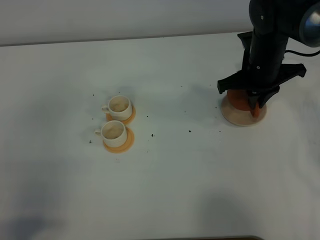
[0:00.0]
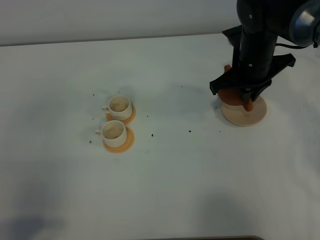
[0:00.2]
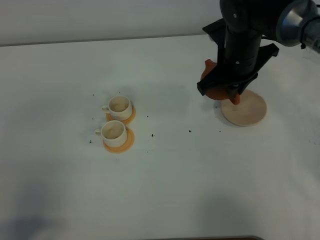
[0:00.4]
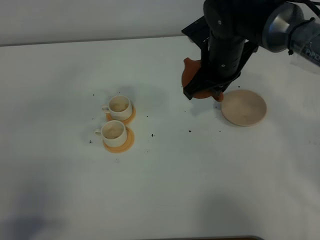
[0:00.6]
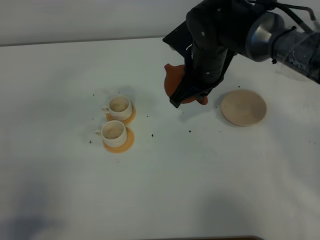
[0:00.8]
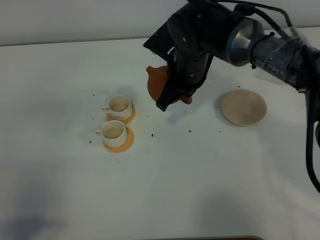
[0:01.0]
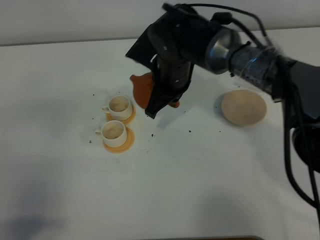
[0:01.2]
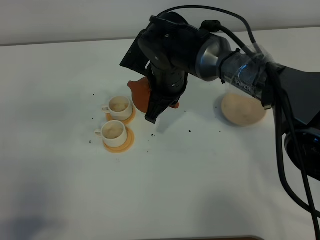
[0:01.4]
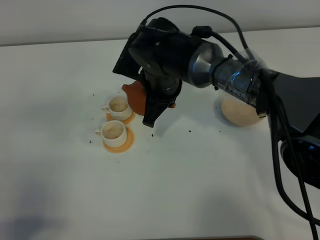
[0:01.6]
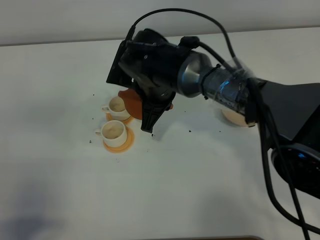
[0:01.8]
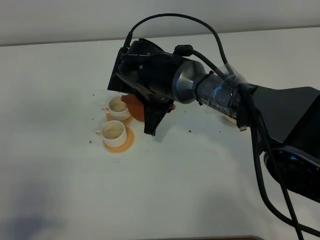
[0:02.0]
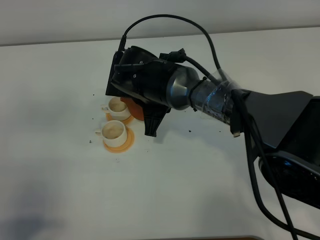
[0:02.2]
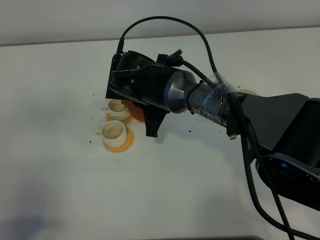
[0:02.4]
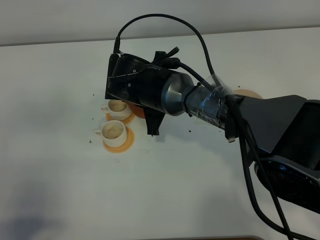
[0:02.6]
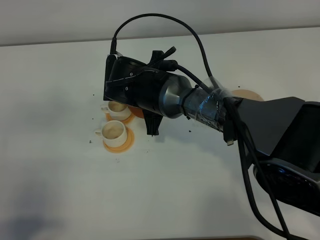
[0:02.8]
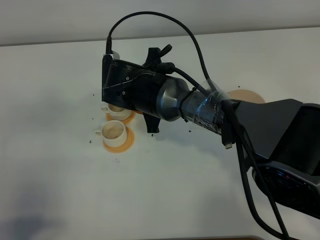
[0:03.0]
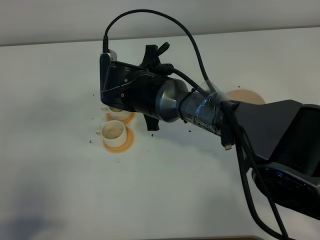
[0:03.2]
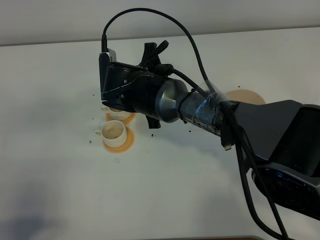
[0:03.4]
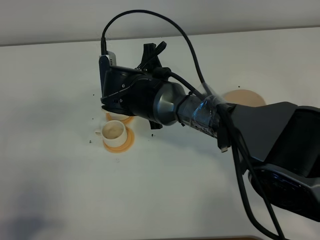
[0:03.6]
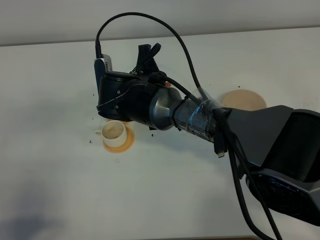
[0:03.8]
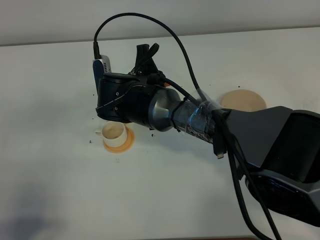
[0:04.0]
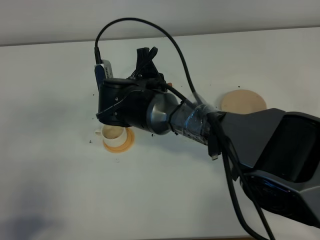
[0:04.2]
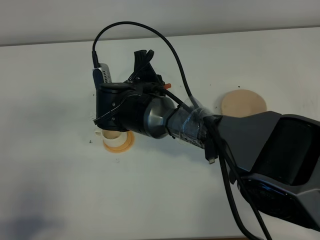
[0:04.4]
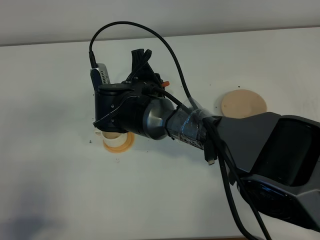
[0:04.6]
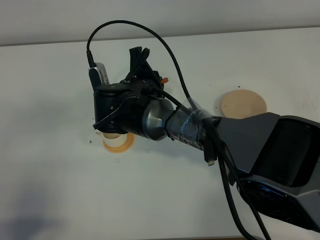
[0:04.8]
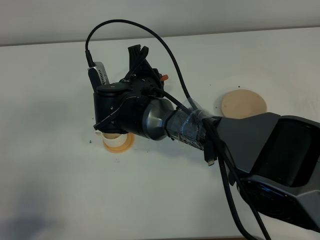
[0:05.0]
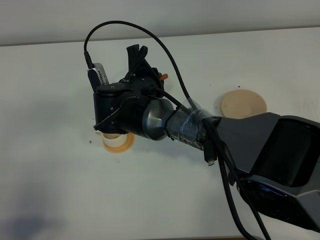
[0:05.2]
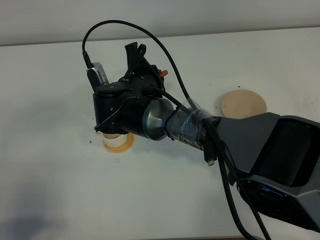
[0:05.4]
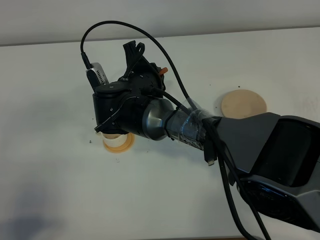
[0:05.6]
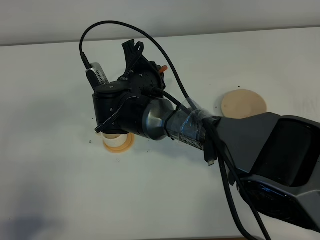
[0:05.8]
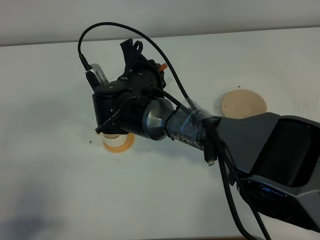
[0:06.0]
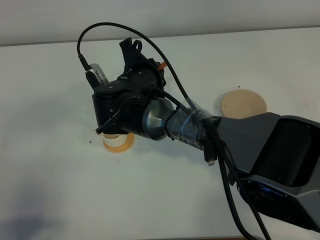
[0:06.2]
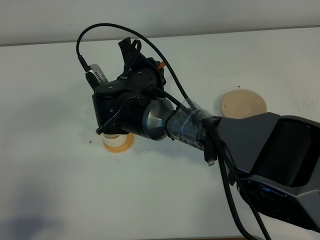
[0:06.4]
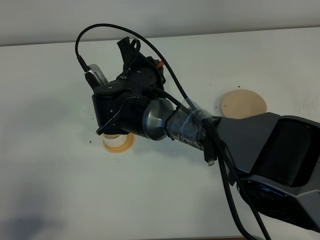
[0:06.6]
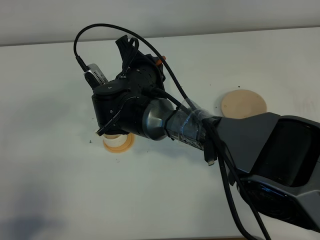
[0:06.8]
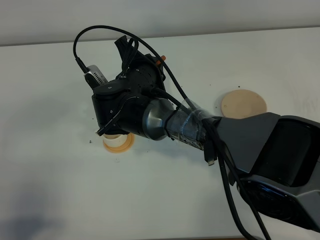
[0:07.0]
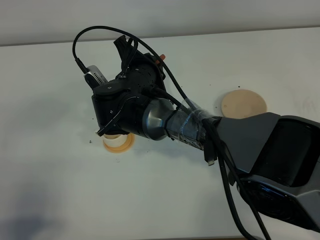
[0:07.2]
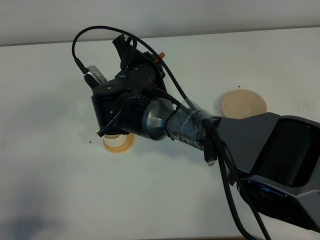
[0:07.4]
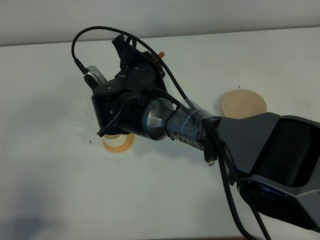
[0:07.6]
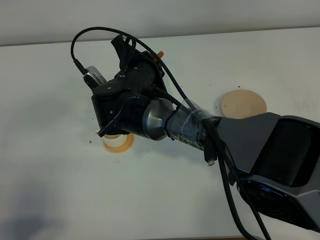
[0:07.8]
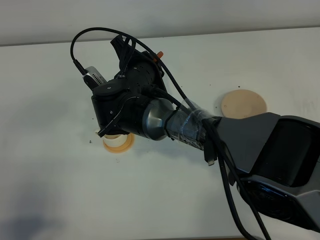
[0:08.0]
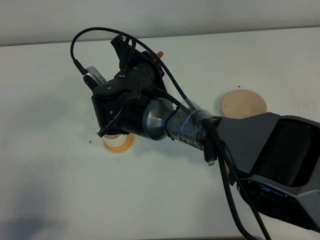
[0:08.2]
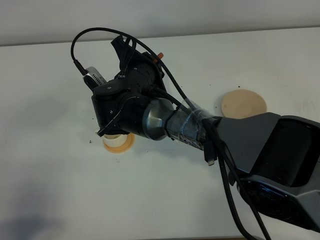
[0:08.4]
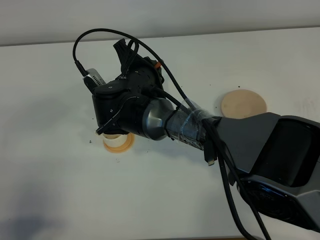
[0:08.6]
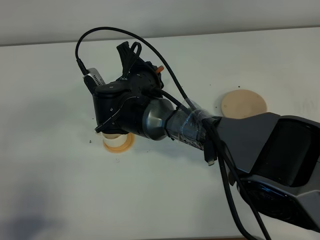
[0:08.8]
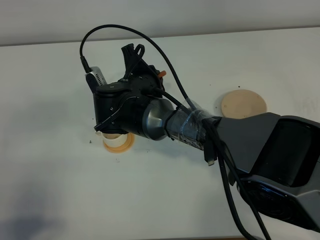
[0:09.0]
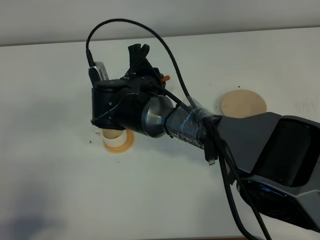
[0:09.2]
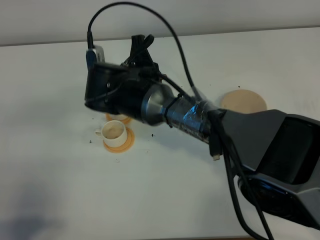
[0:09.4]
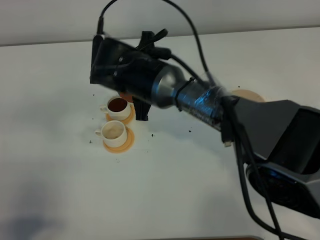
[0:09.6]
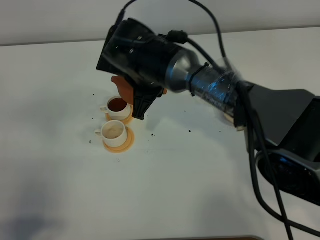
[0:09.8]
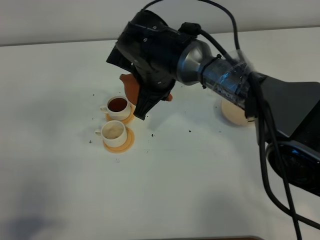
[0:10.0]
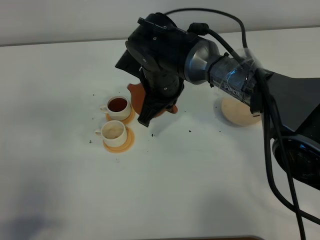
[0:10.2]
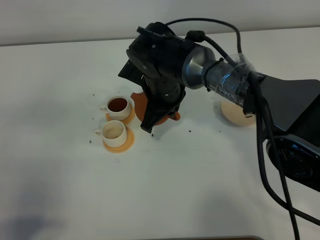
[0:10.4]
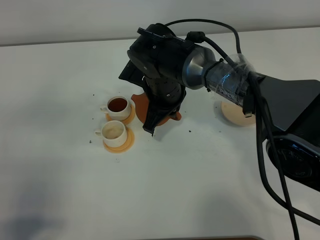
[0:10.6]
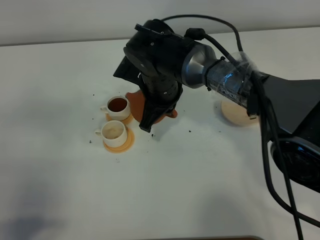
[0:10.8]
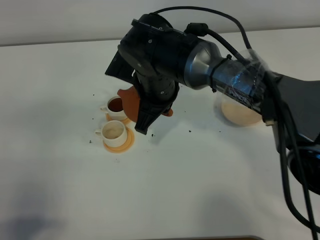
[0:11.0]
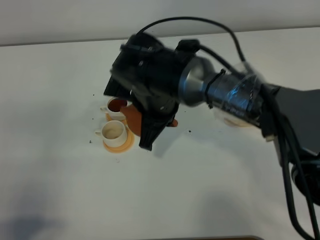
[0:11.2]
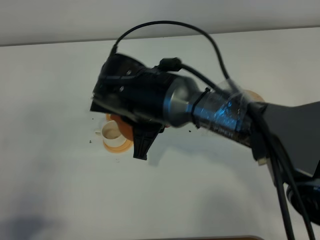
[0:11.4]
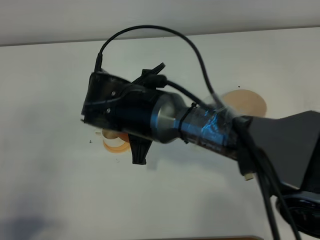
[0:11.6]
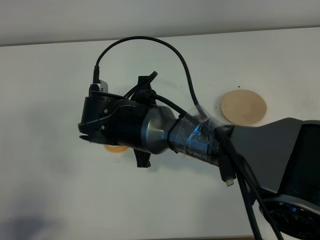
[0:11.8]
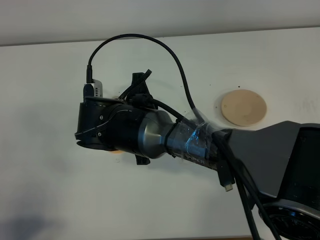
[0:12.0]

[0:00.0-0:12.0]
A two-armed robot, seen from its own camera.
Task of the whole recording: grasp the brown teapot and pour the tea into the two white teacups one by one, put the brown teapot back in its original place.
0:00.0 to 0:01.6: The right gripper travels to the left by roughly 20 cm.
0:04.4 to 0:06.0: The grippers make only small movements.
0:06.0 to 0:09.0: There are only small adjustments of the grippers.
0:09.0 to 0:10.4: The right gripper ends up some 5 cm from where it was.
0:10.4 to 0:12.0: The right gripper travels backward by roughly 10 cm.

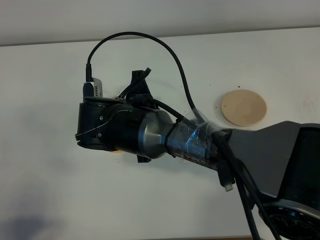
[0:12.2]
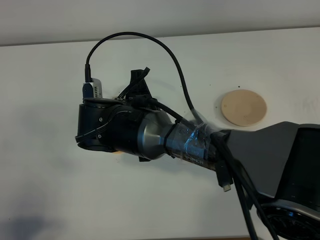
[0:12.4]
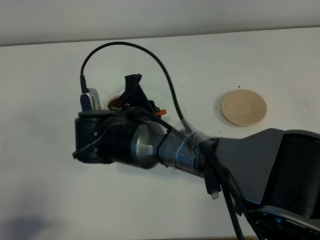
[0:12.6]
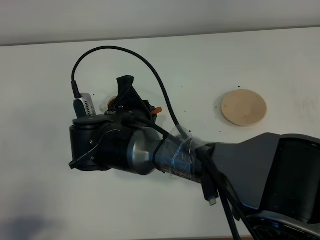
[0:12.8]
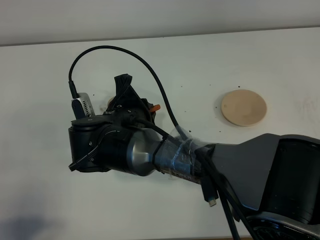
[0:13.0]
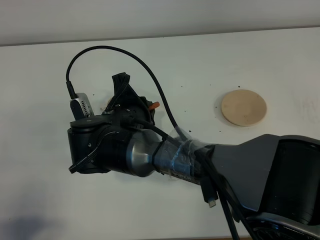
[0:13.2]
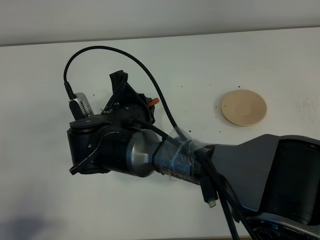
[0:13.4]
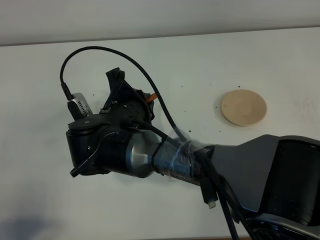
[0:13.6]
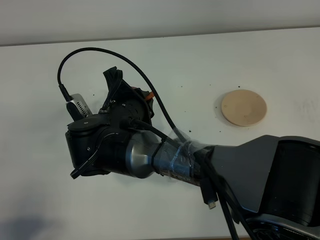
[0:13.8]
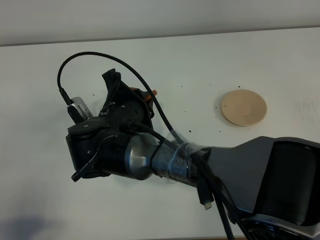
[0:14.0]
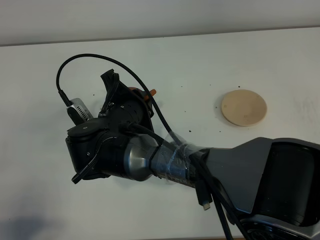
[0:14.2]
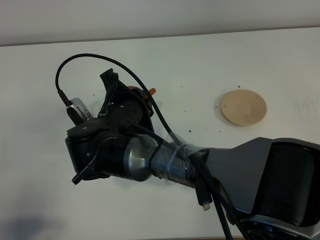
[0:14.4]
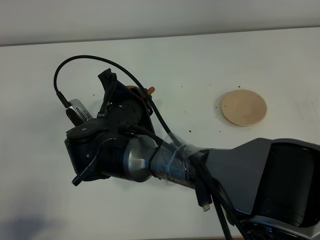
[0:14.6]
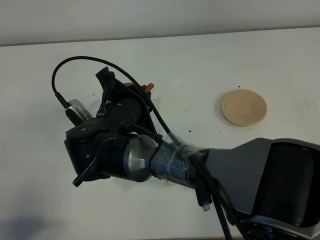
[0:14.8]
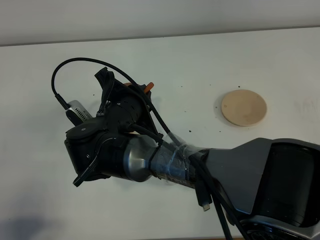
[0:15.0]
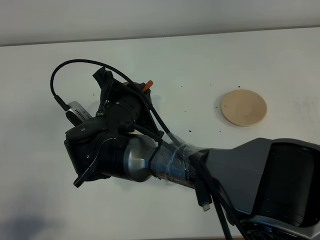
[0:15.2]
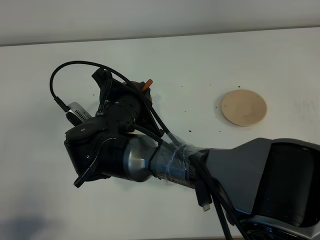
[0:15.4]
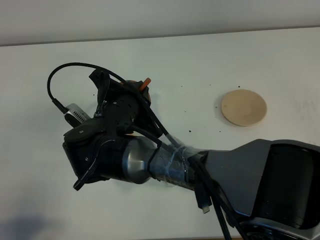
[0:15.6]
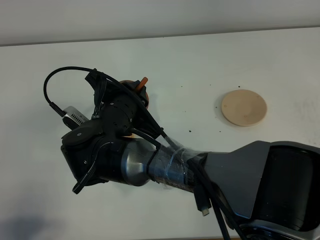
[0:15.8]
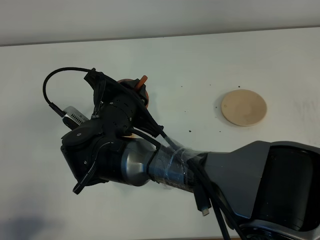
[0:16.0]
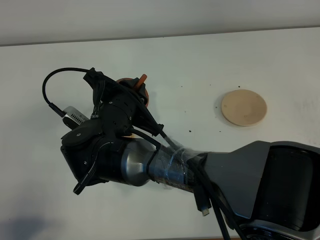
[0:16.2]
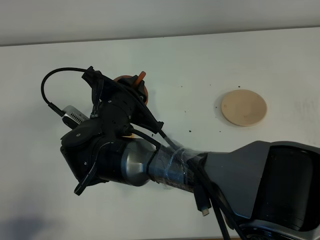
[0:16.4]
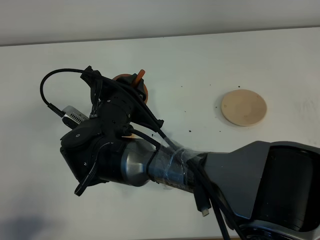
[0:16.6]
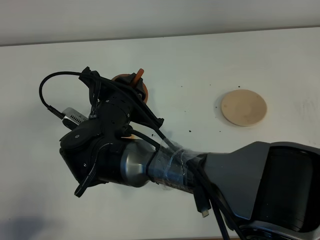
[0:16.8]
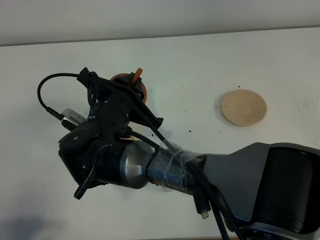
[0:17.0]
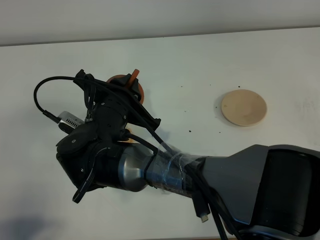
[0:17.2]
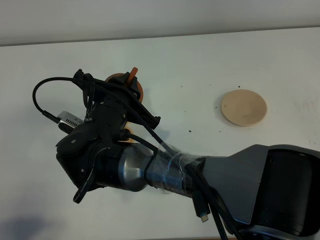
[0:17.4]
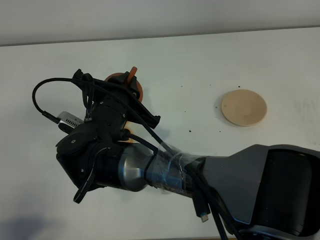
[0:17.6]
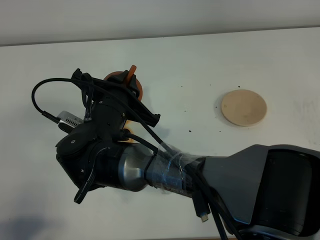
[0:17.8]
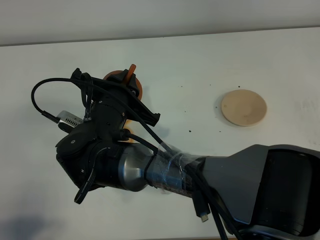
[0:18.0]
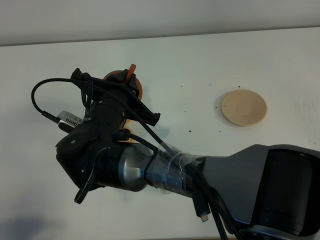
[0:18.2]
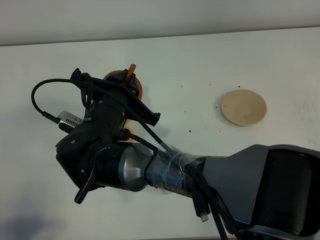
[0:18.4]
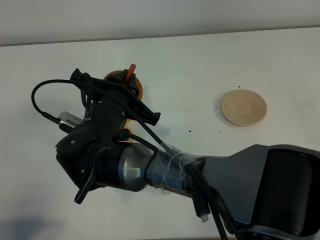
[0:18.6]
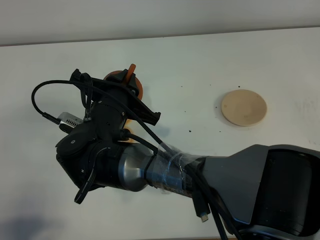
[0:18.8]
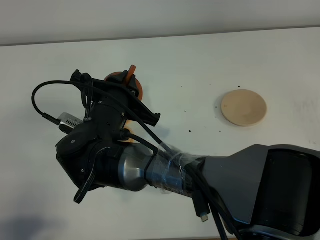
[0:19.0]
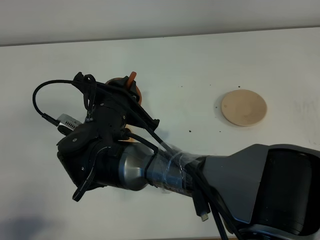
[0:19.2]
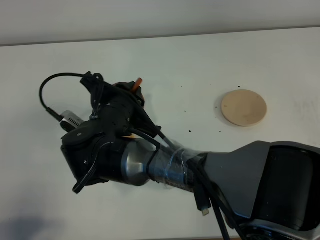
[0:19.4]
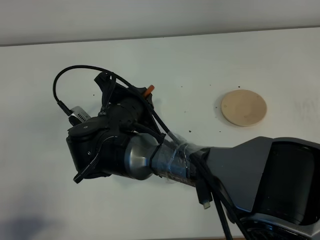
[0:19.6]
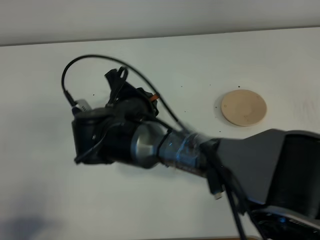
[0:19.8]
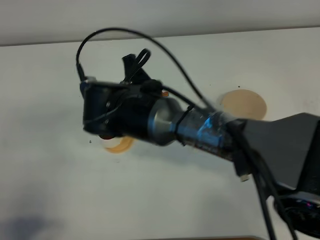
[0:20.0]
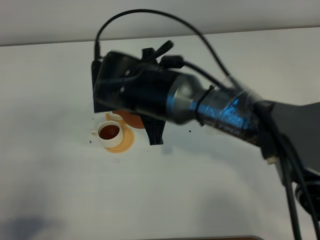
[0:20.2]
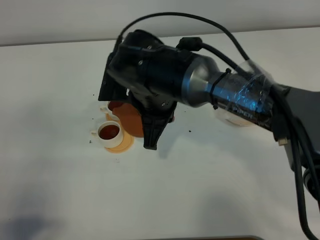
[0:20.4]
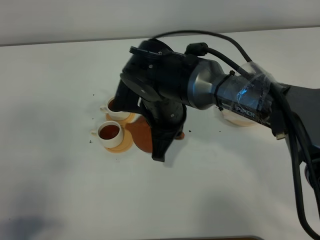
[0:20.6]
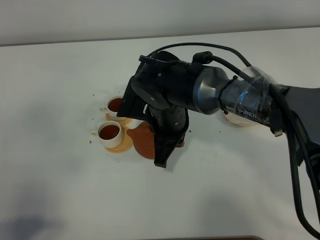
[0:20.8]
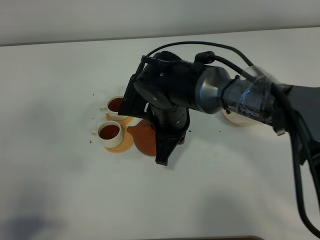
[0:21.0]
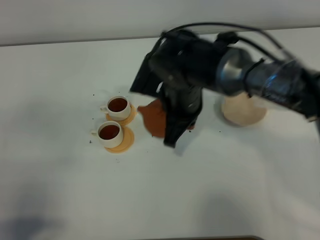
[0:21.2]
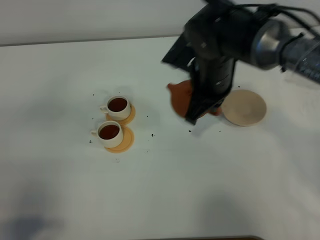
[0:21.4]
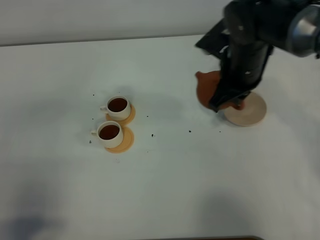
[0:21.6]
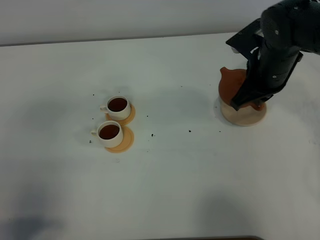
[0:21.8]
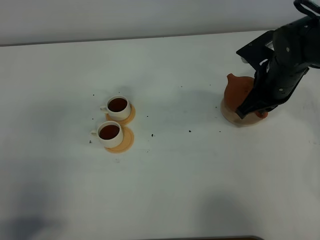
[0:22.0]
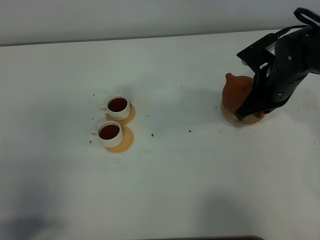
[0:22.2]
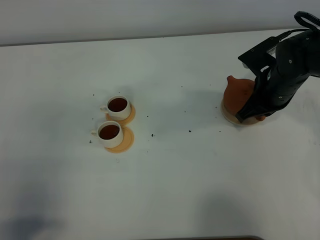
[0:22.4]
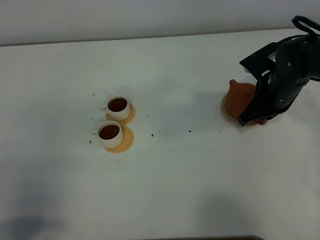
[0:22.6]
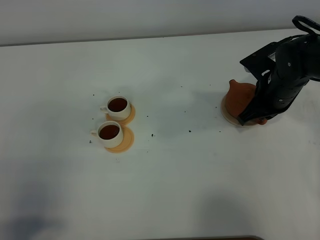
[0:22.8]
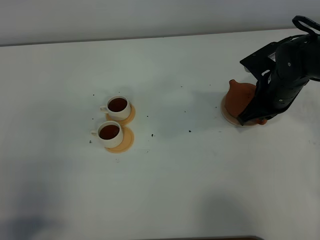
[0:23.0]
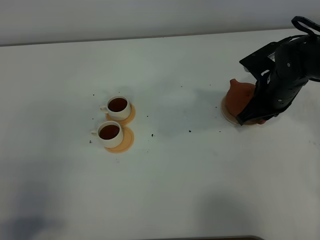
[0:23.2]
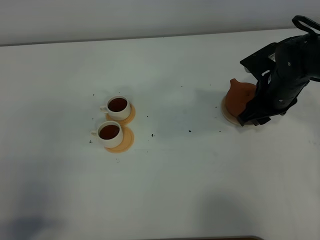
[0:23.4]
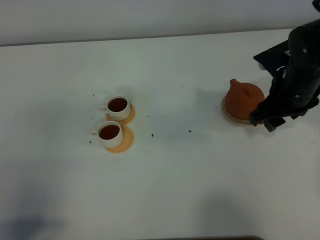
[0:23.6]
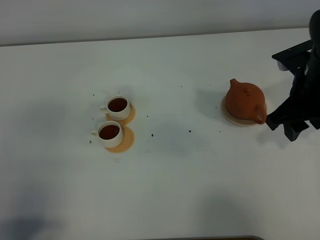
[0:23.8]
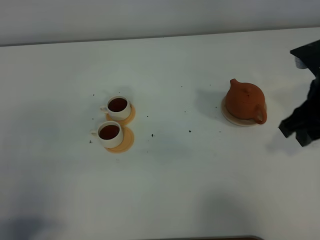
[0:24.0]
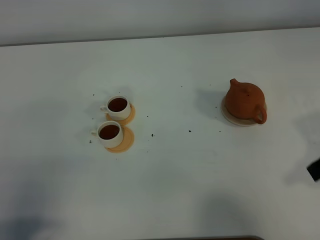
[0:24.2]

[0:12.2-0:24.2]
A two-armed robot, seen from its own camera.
Task of the whole recording: grasp the brown teapot and pour the tea into the two white teacups one by one, put the brown teapot back in its original place.
0:13.8 to 0:15.2: The grippers make only small movements.
0:15.2 to 0:18.2: The grippers make only small movements.
0:19.8 to 0:21.2: The right gripper shifts roughly 10 cm to the right and forward.
0:21.2 to 0:22.6: The right gripper is displaced to the right and forward by about 20 cm.
0:22.6 to 0:24.2: The right gripper goes about 25 cm backward, upward and to the right, and opens up.
